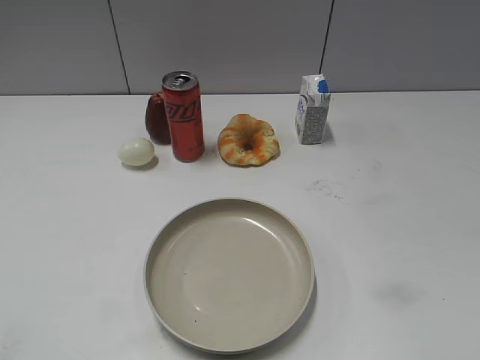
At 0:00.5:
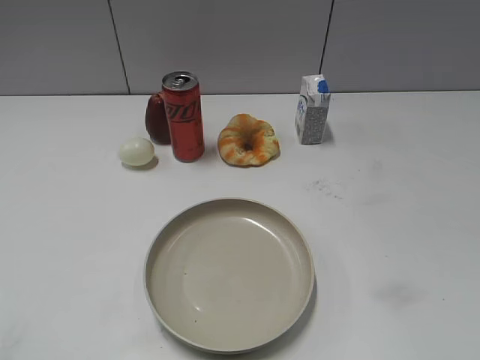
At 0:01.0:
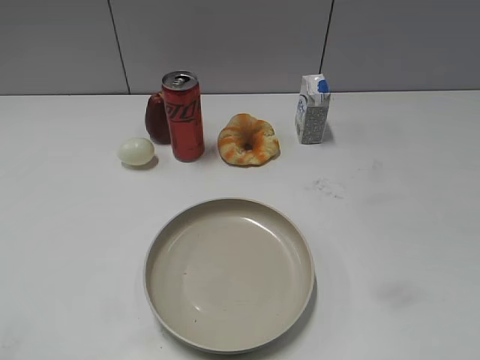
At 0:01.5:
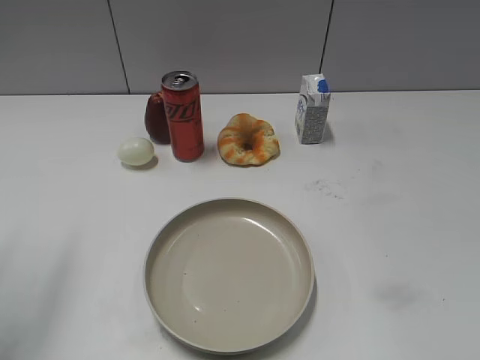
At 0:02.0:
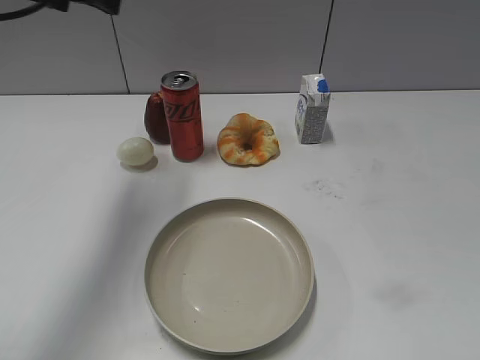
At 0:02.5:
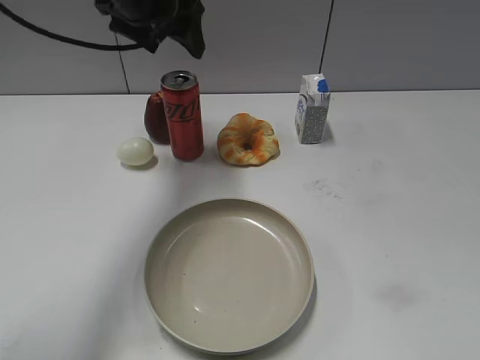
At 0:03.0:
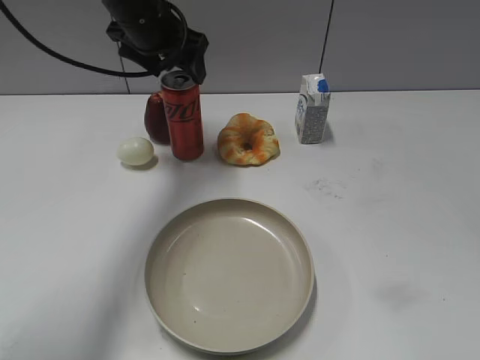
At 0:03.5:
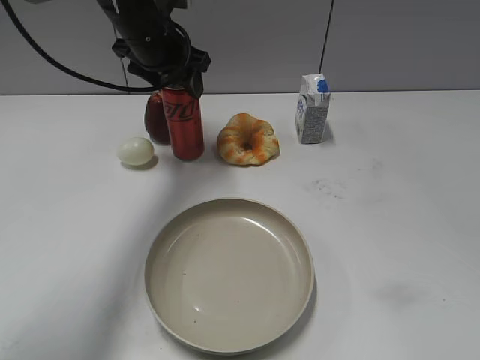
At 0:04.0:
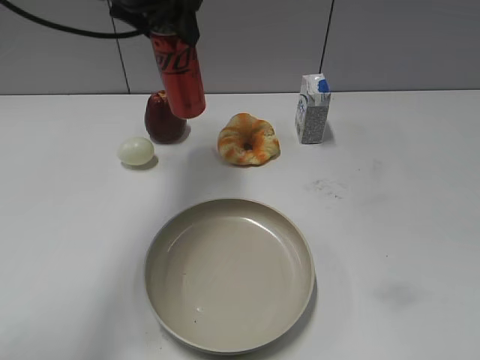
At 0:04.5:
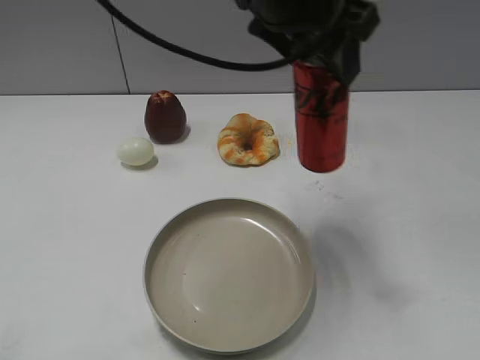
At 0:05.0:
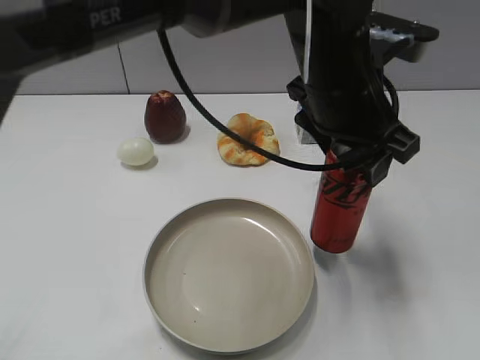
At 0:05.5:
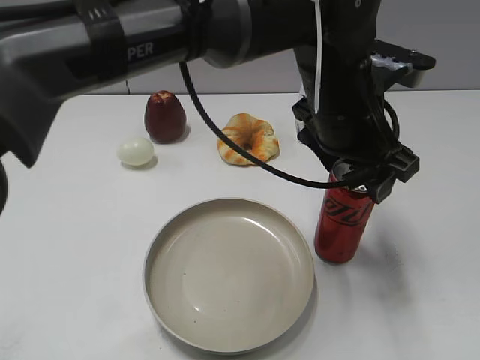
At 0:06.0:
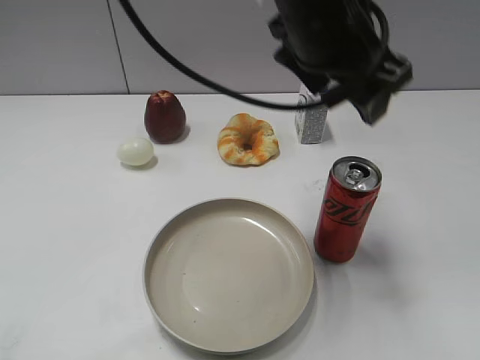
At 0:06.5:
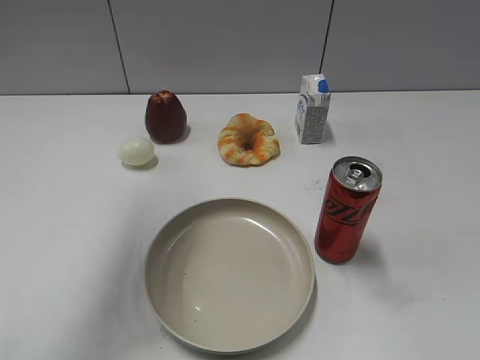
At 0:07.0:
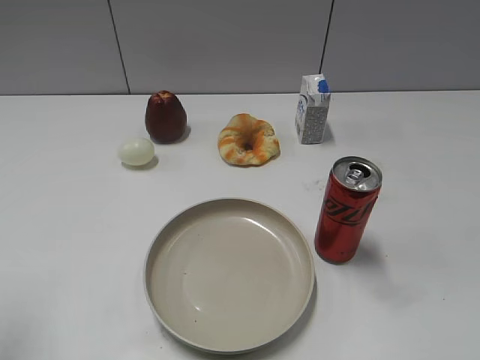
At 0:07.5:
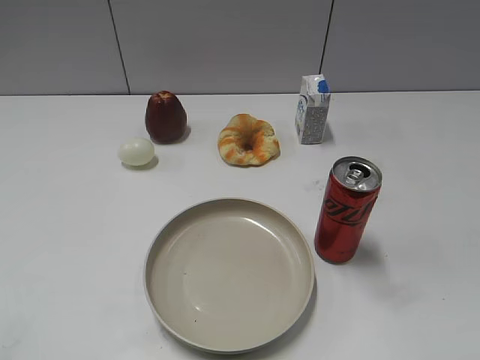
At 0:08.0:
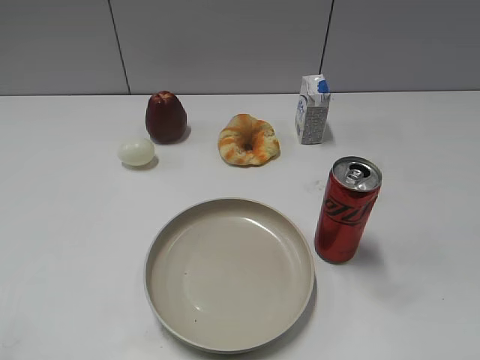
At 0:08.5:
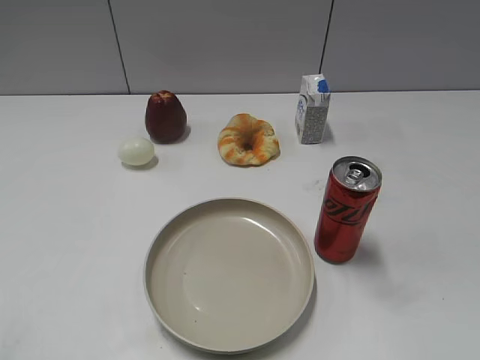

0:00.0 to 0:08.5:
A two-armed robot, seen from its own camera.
Step, 0:01.0 to 0:03.5: Grasp the cola with left gripper.
Step, 0:04.0 to 0:05.5: Place the cola on the table with left gripper.
0:02.0 to 0:04.0: The left gripper goes some 10 cm to the right, goes downward and returns, some 10 cm each way, and closes up.
0:04.0 to 0:06.5: The left gripper heads upward and backward, covering approximately 15 cm, travels to the right and back again, approximately 20 cm each way, and opens up.
0:06.5 to 0:08.5: The left gripper travels backward, downward and to the left by about 35 cm, and closes.

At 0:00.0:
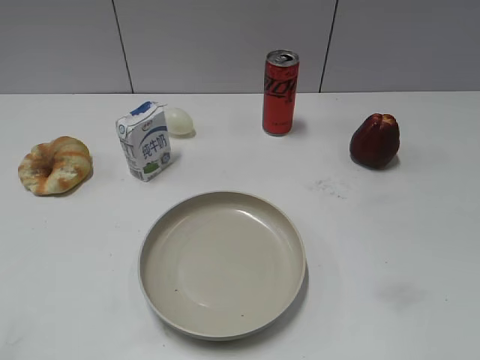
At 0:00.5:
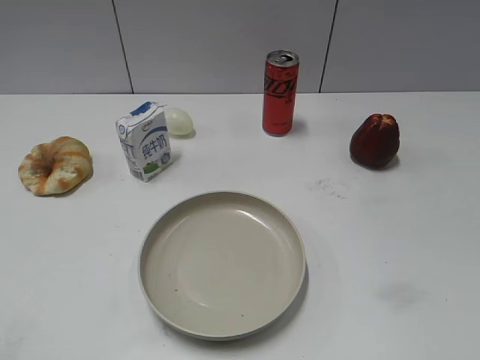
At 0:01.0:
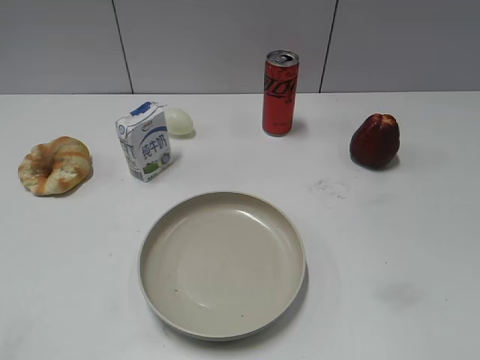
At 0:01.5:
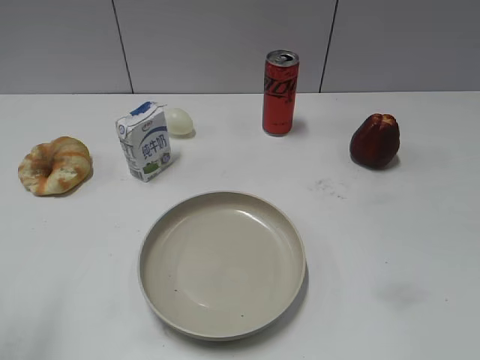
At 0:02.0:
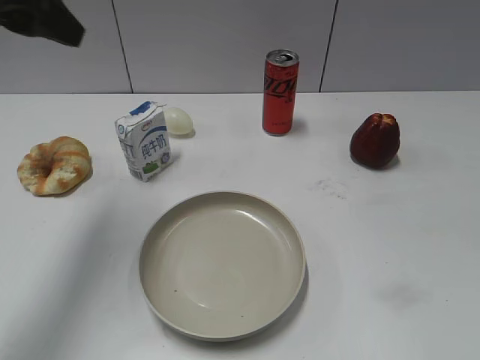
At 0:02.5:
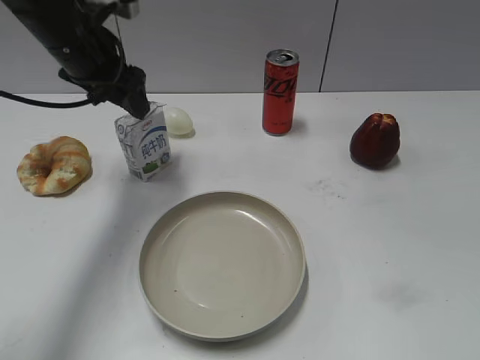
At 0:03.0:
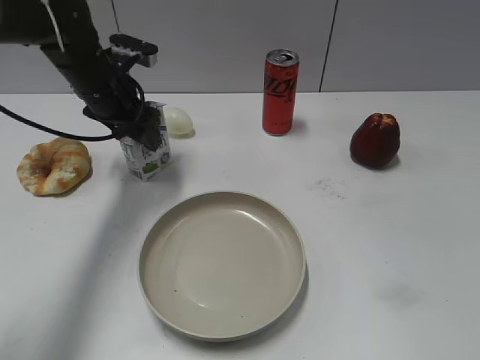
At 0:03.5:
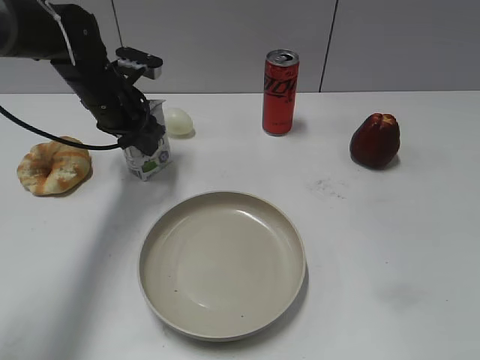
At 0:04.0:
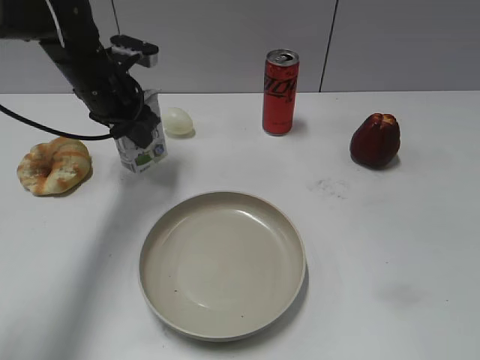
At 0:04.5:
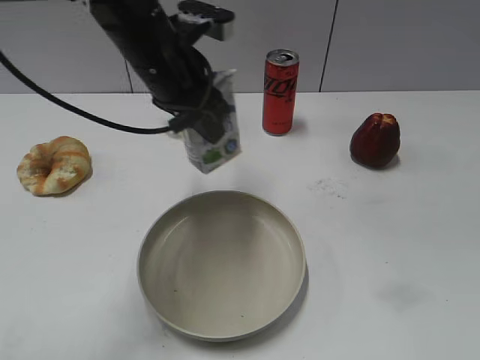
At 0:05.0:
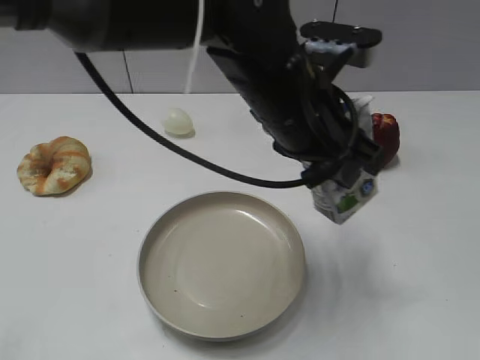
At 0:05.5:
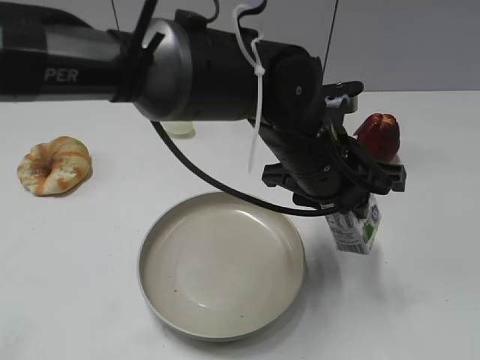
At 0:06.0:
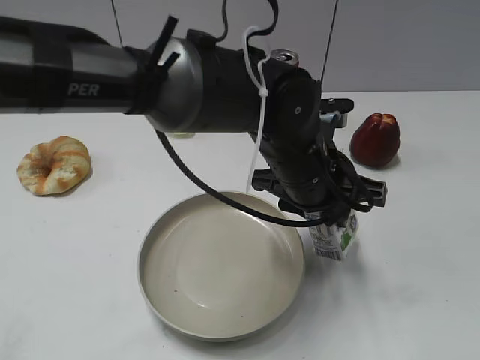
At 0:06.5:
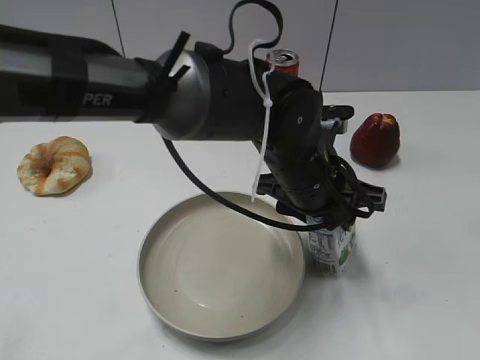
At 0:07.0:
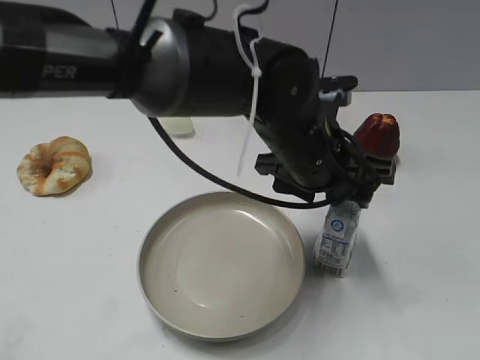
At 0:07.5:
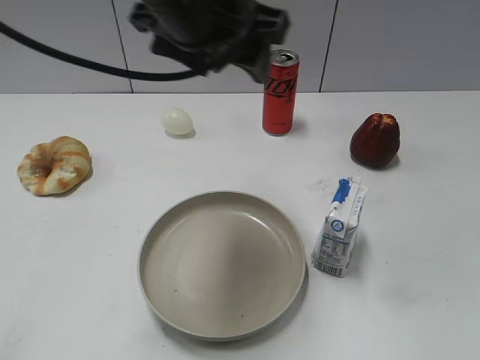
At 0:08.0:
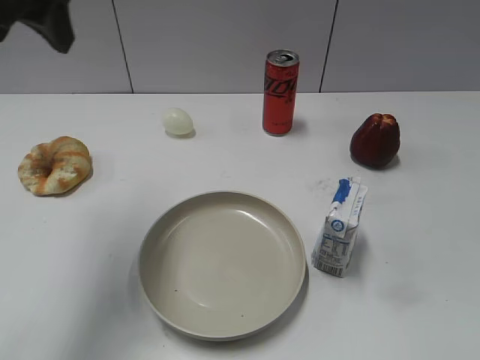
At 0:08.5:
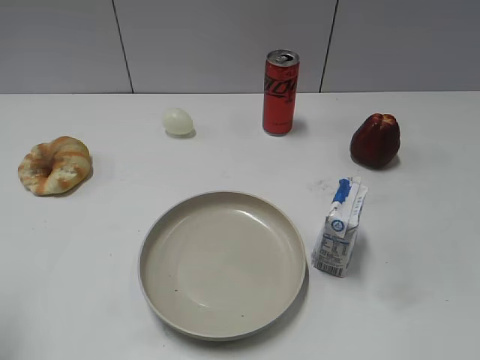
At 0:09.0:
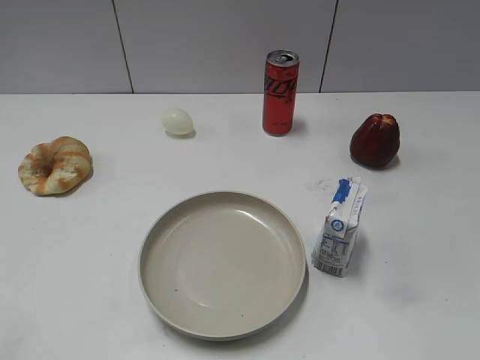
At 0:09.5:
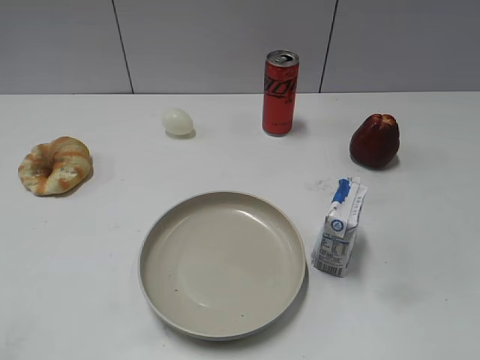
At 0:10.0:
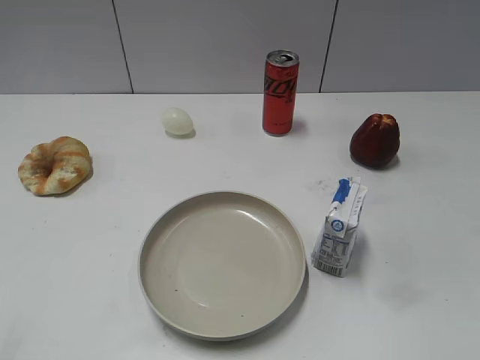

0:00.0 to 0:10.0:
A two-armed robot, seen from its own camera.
Step, 0:01.0 to 0:03.5: Grasp the milk with left gripper.
Step, 0:04.0 to 0:06.5: Place the milk on the table with left gripper.
0:02.0 to 0:04.0: The left gripper shifts approximately 15 cm downward and forward, and closes.
0:04.0 to 0:06.0: The left gripper moves to the right and backward, about 30 cm.
0:06.0 to 0:08.0: The left gripper is displaced to the left and upward by about 35 cm, and opens up.
0:08.0 to 0:10.0: The left gripper moves backward, some 25 cm.

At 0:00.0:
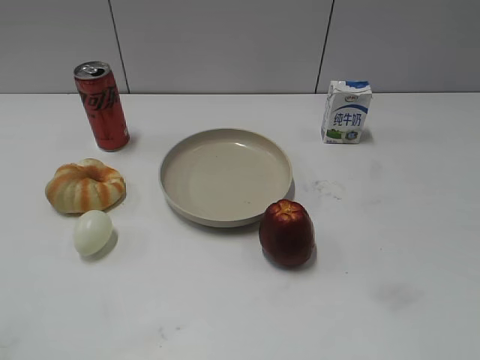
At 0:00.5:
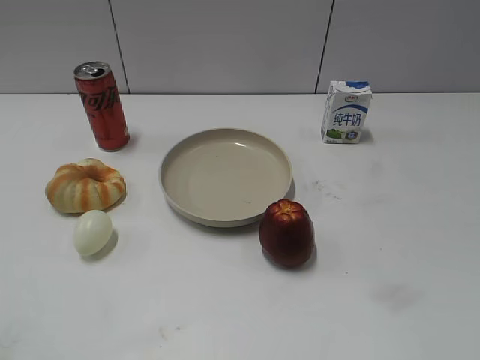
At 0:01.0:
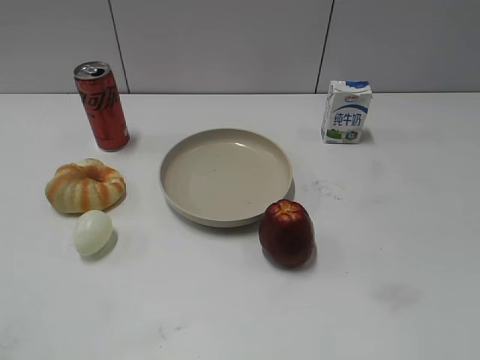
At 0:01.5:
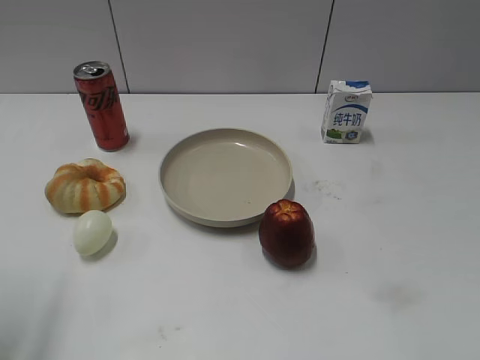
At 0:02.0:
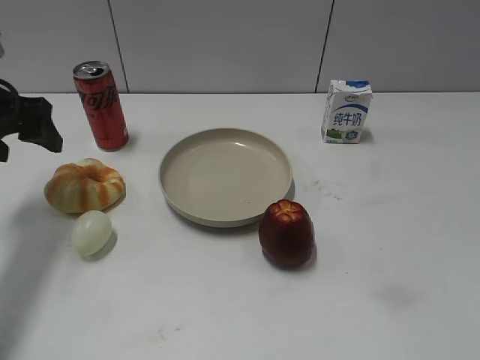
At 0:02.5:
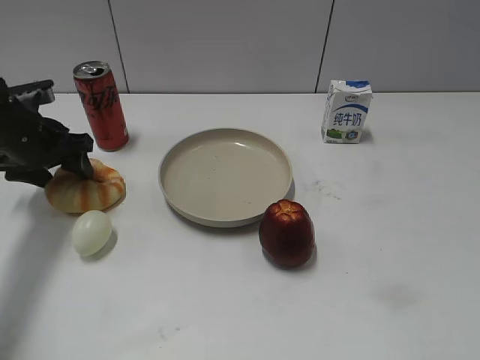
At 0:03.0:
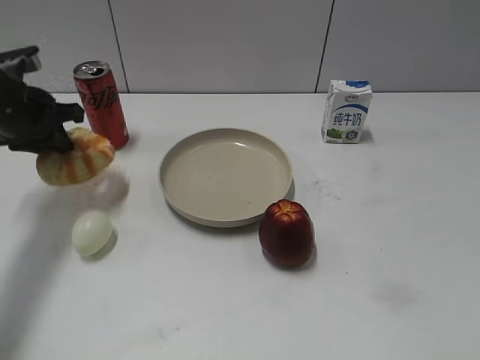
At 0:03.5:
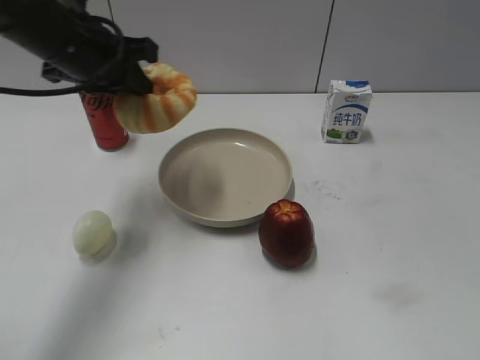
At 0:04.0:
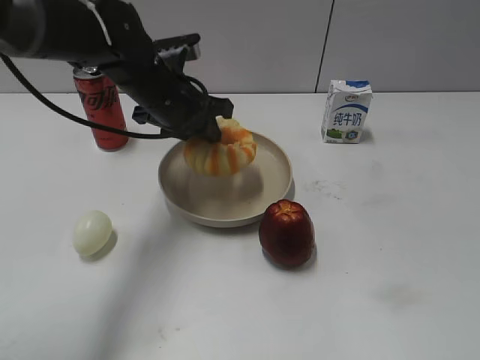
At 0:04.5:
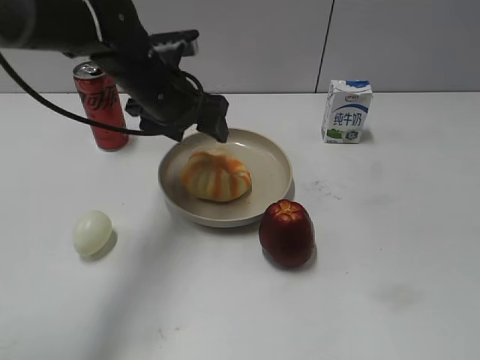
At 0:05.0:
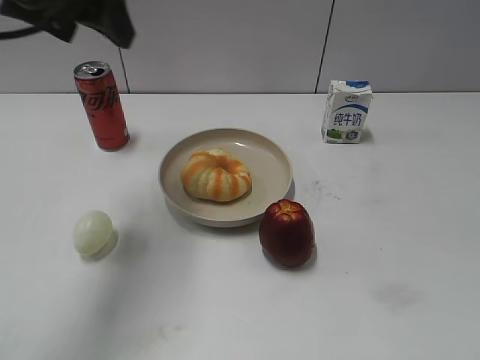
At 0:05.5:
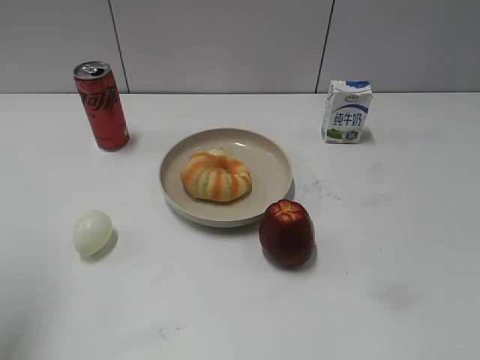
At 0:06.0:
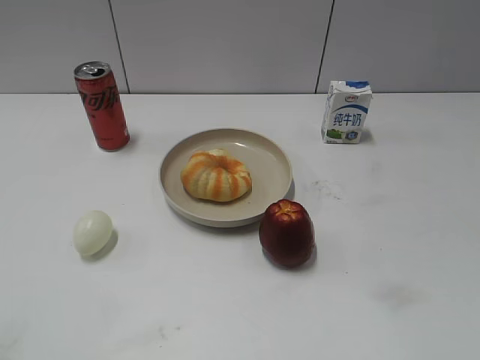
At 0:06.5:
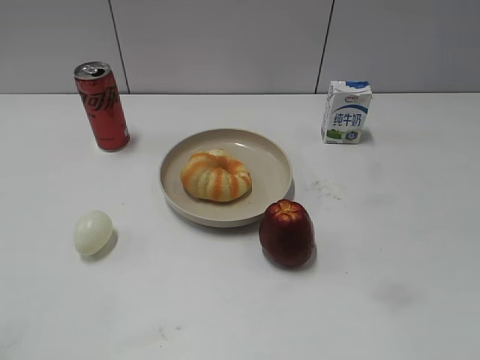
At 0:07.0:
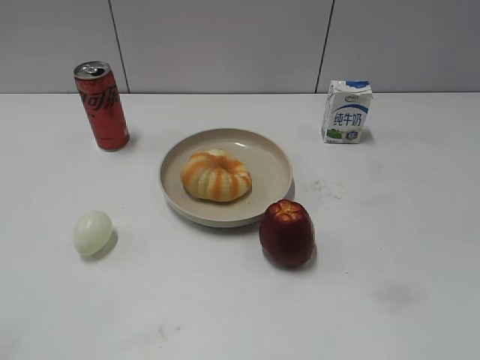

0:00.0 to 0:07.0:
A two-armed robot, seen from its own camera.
Step, 0:01.0 to 0:02.5: Grasp the round bread with left gripper.
Step, 0:03.0 to 0:04.5: Place the round bread on the plate with left gripper.
0:00.0 to 0:02.0: The left gripper goes some 40 cm forward.
0:02.0 to 0:03.5: The left gripper is displaced to the right by roughly 20 cm, and closes up.
0:03.5 to 0:05.0: The left gripper moves to the left, upward and backward, roughly 30 cm, and opens up.
0:05.0 to 0:07.0: The left gripper shifts approximately 25 cm backward, and closes up.
